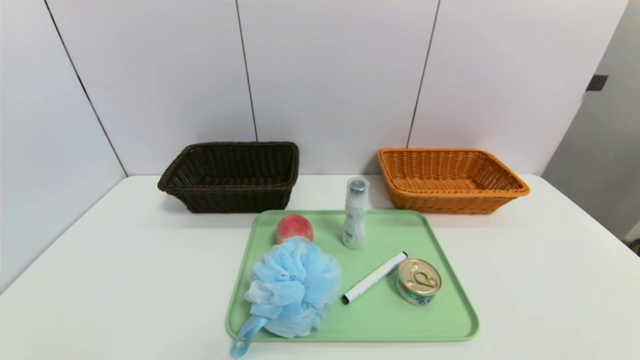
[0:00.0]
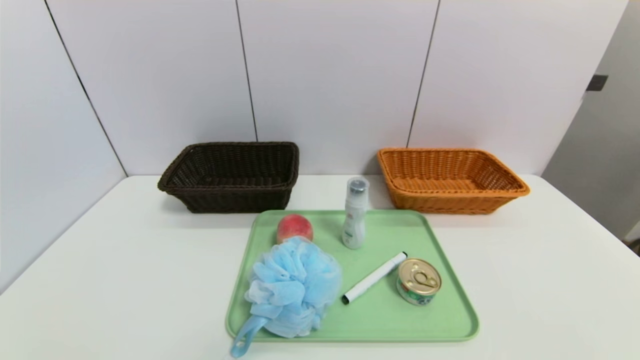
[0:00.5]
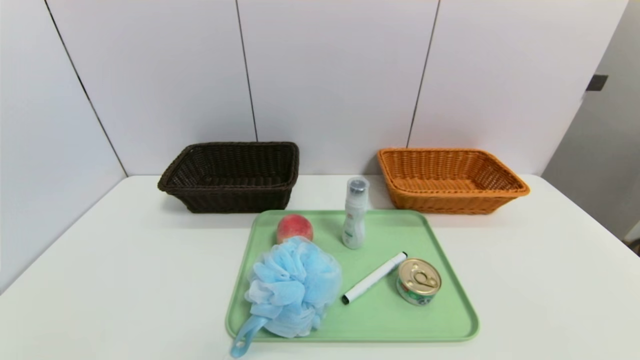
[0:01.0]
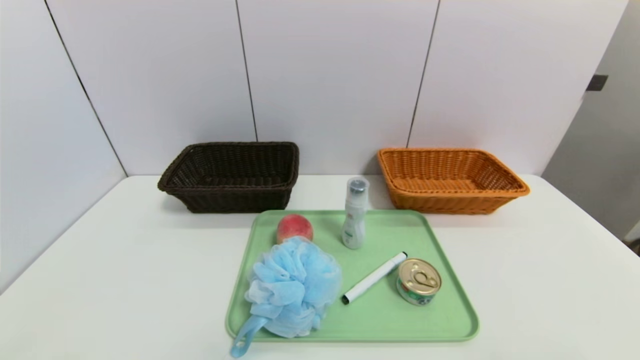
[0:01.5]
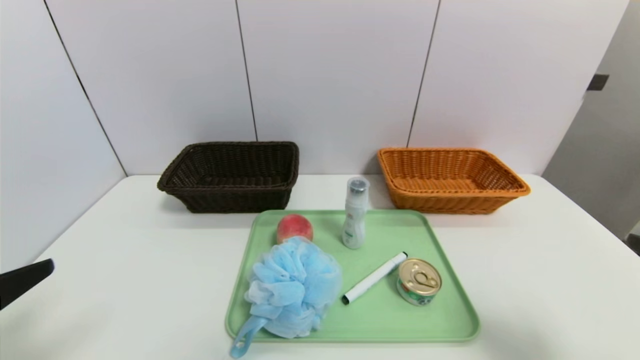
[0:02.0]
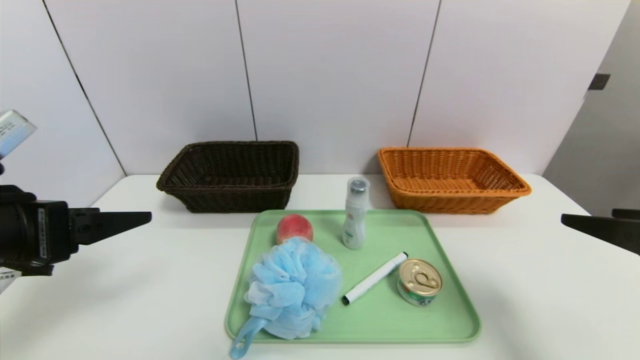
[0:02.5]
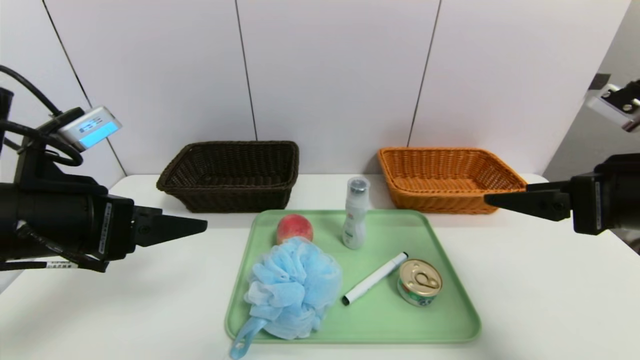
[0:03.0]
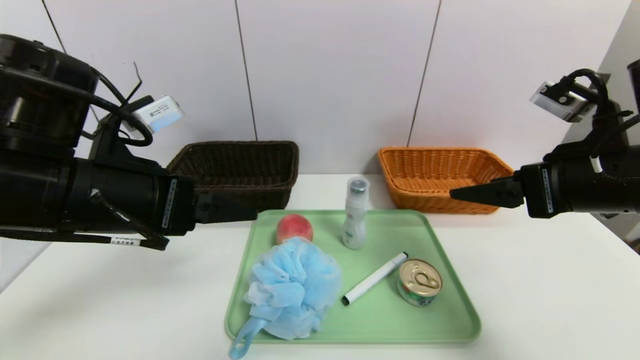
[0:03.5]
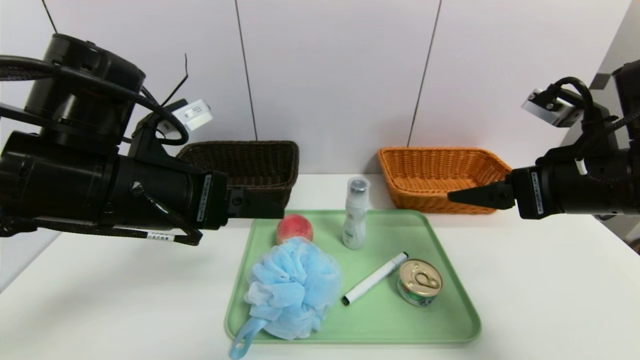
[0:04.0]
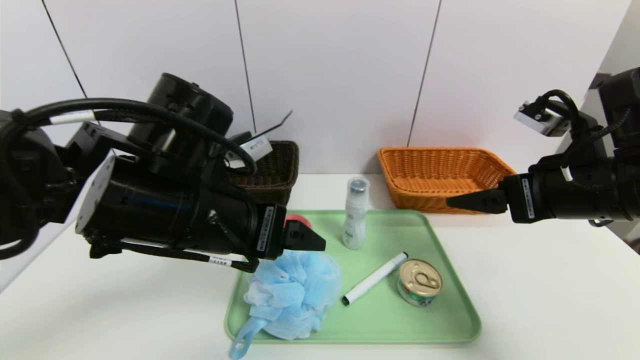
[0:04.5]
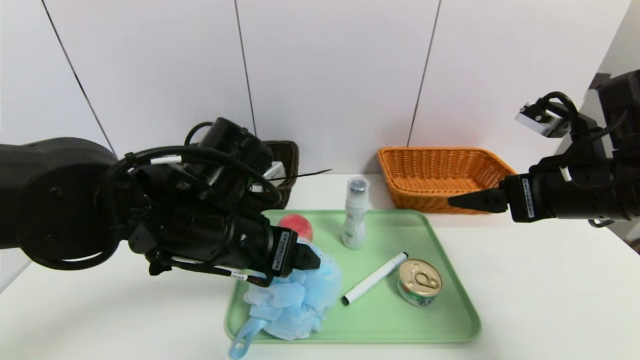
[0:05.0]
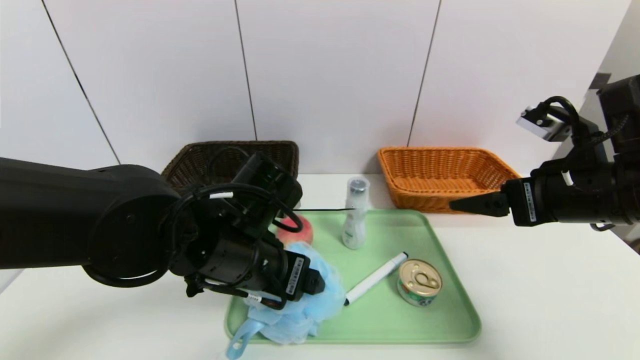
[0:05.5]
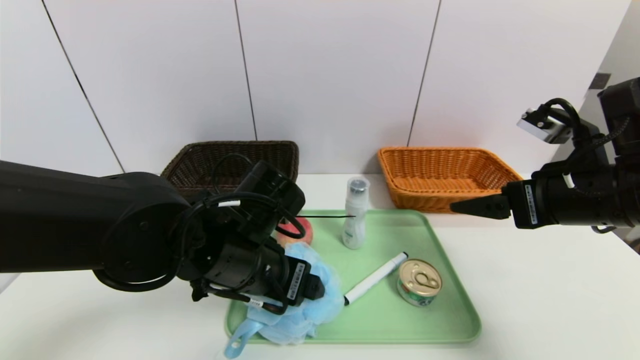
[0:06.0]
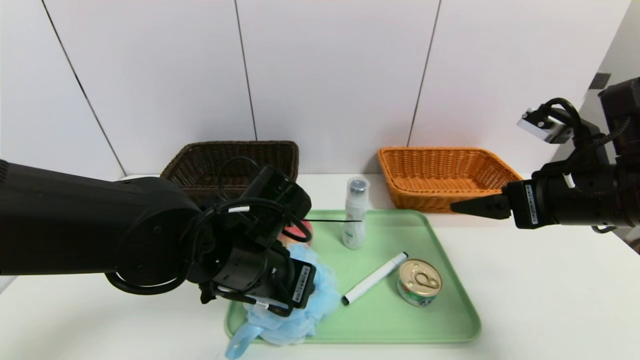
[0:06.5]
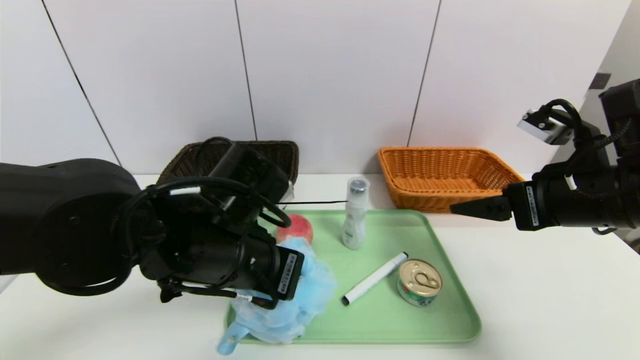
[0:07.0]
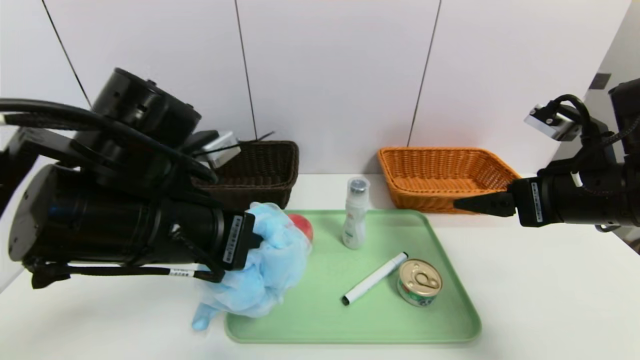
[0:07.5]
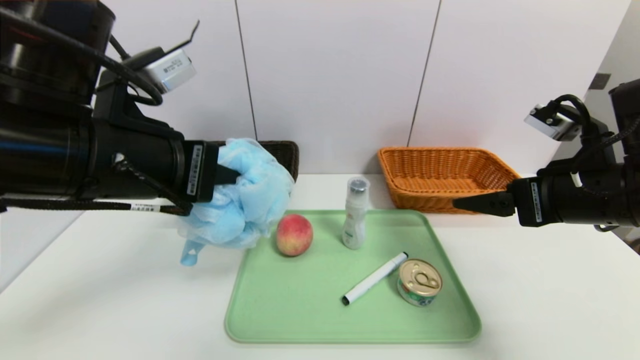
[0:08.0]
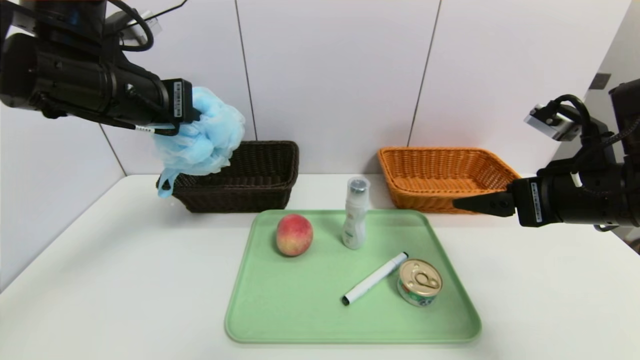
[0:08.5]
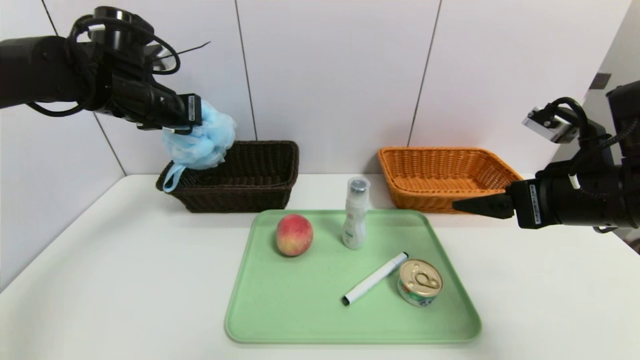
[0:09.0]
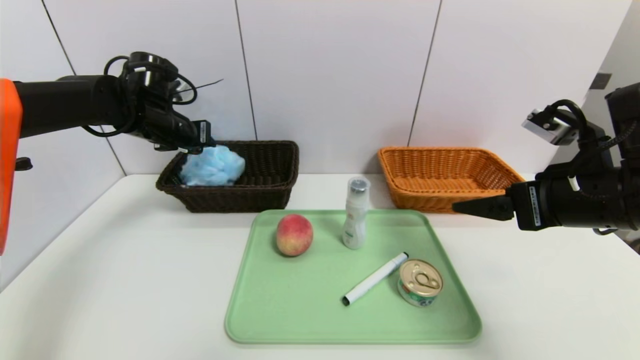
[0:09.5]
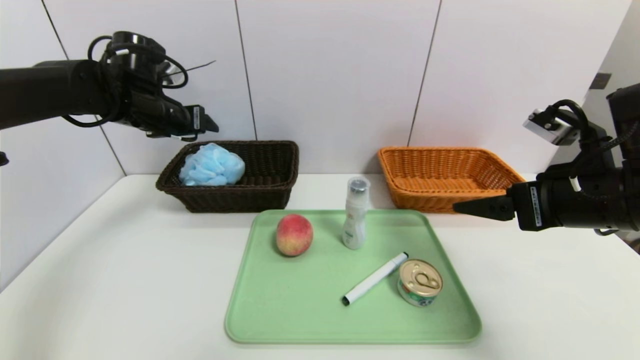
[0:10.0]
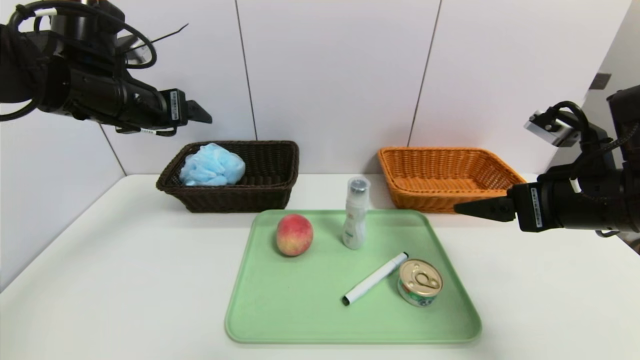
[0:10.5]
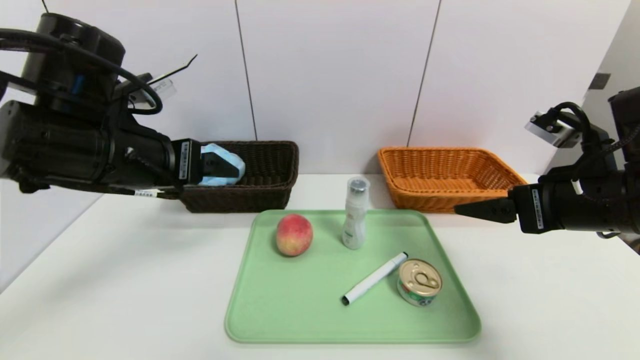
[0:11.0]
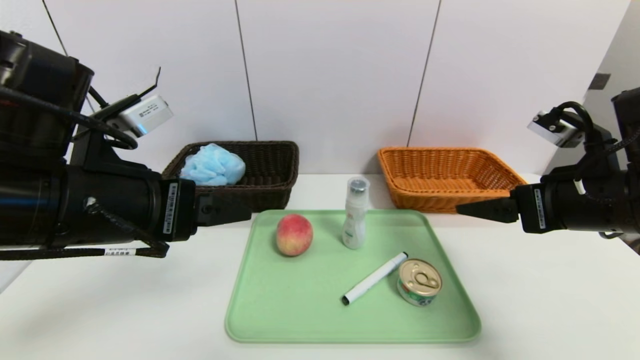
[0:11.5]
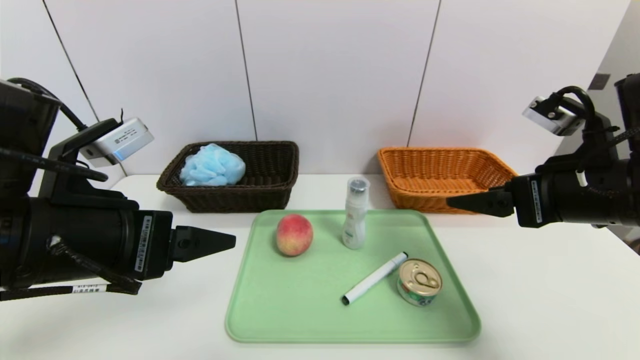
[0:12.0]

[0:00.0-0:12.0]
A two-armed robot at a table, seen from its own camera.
Task of the whole recording: place the food in the right basket with the right gripper, and place the non food items in the left basket with the left gripper.
Step, 0:00.0 to 0:09.5: Grasp the bath ball and put it in the left basket.
0:00.0 to 0:02.0: Both grippers move upward and forward, some 20 cm.
0:02.0 to 0:04.0: The left gripper goes roughly 20 cm forward and to the right. The right gripper goes roughly 15 cm forward and to the left.
0:04.0 to 0:06.0: The left gripper is displaced downward and to the right by roughly 15 cm.
0:06.0 to 0:08.0: The left gripper is displaced upward and to the left by roughly 15 cm, and closes its fingers.
0:08.0 to 0:10.0: The left gripper is displaced forward and to the left by approximately 25 cm, and opens up.
0:10.0 to 0:12.0: The left gripper moves backward, approximately 25 cm.

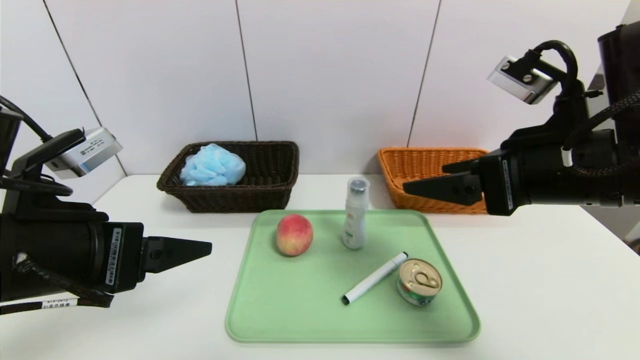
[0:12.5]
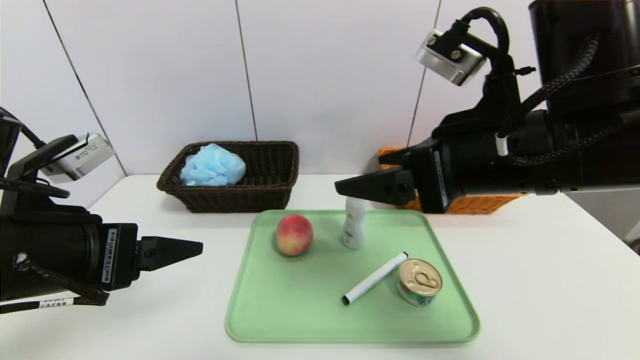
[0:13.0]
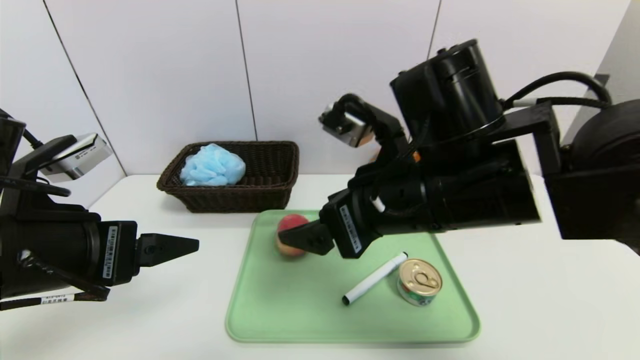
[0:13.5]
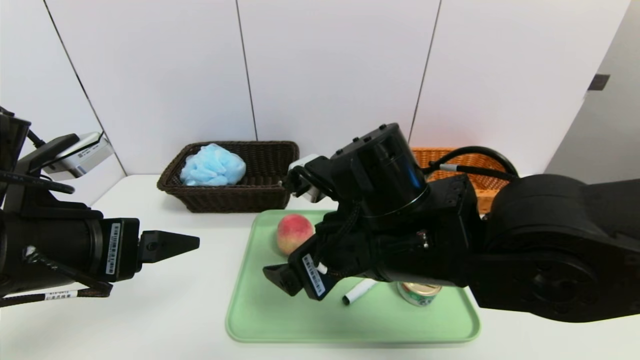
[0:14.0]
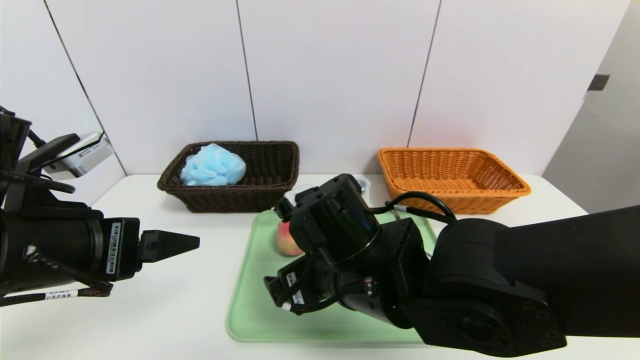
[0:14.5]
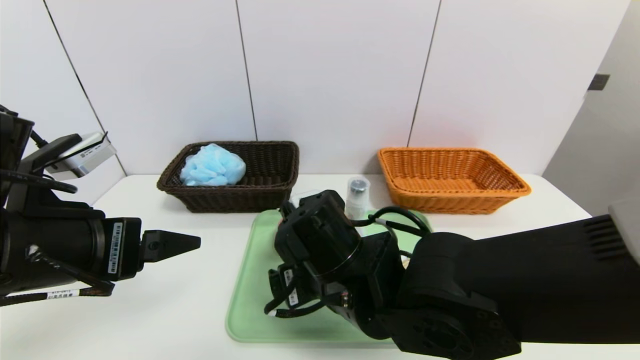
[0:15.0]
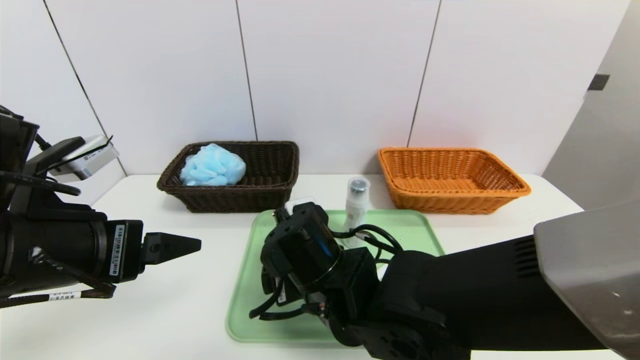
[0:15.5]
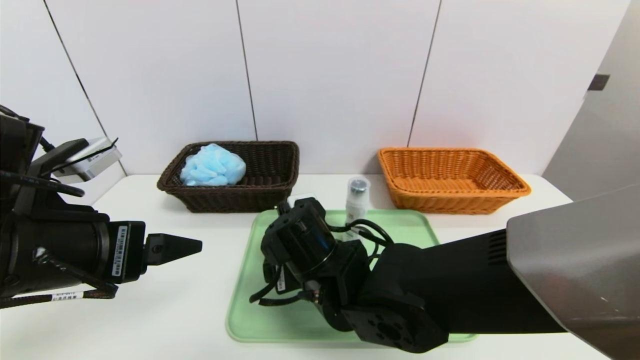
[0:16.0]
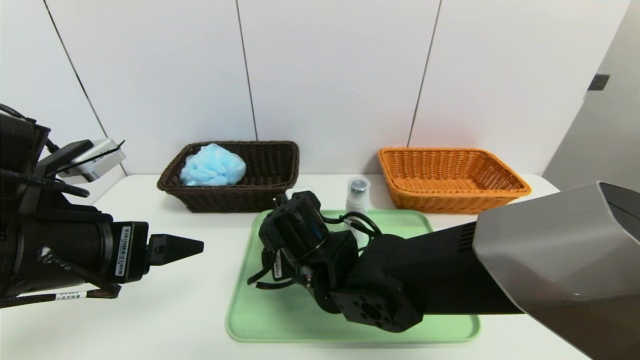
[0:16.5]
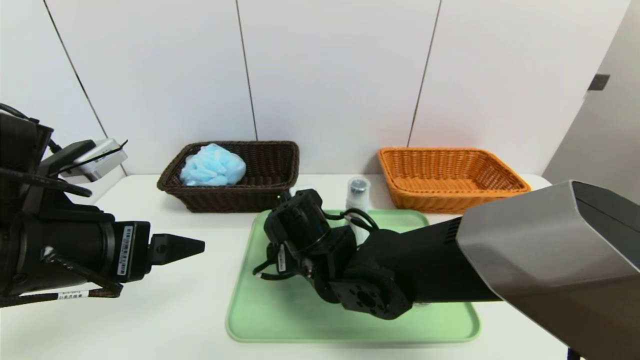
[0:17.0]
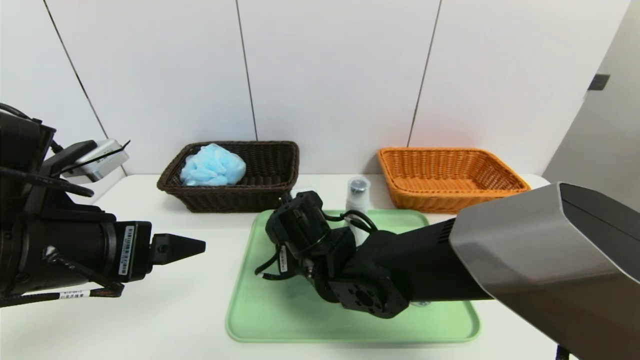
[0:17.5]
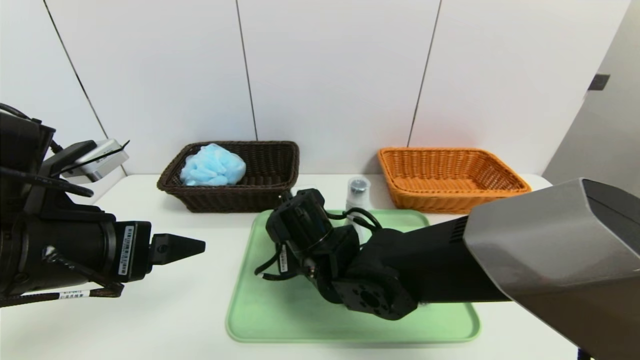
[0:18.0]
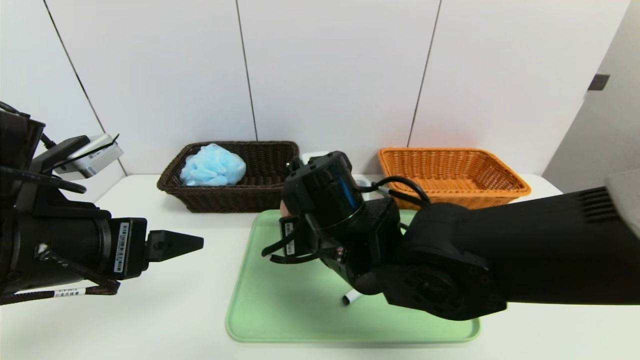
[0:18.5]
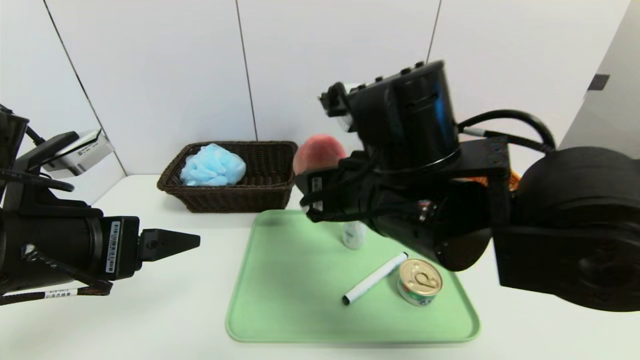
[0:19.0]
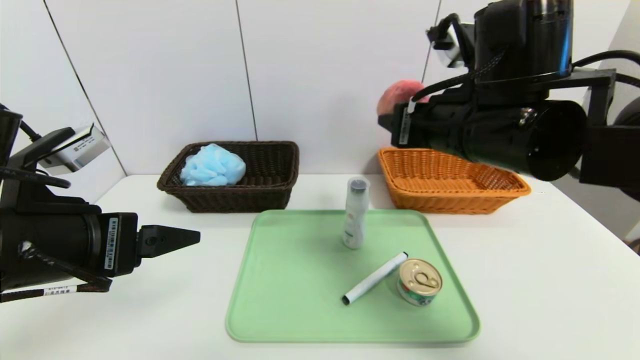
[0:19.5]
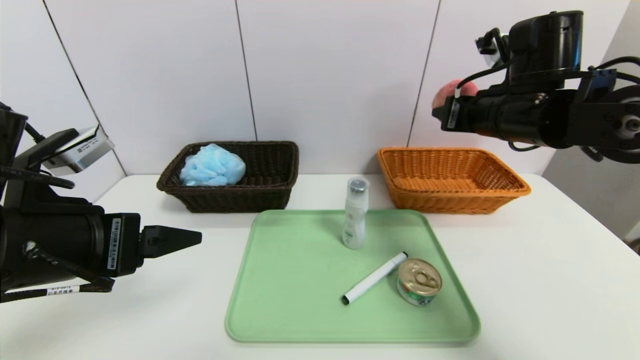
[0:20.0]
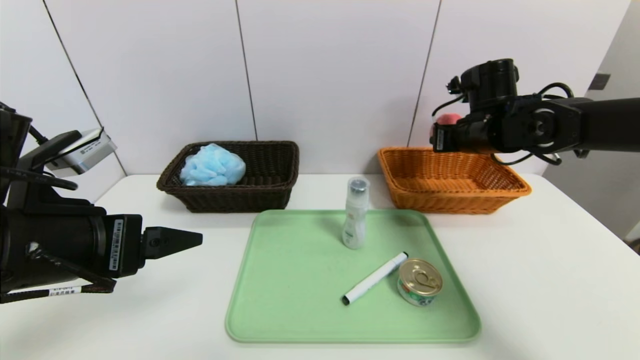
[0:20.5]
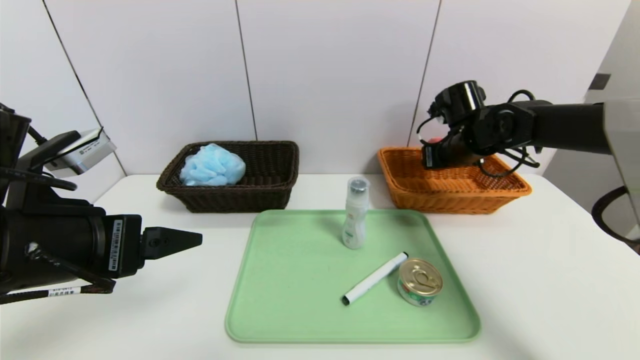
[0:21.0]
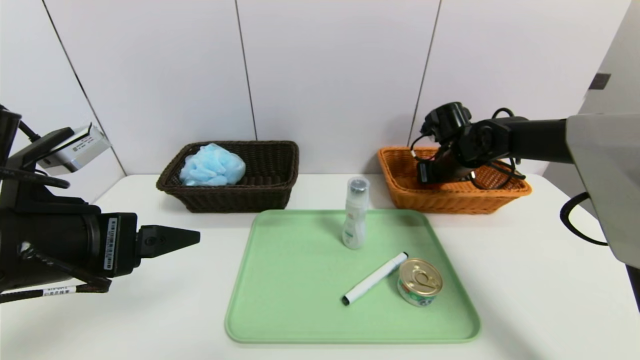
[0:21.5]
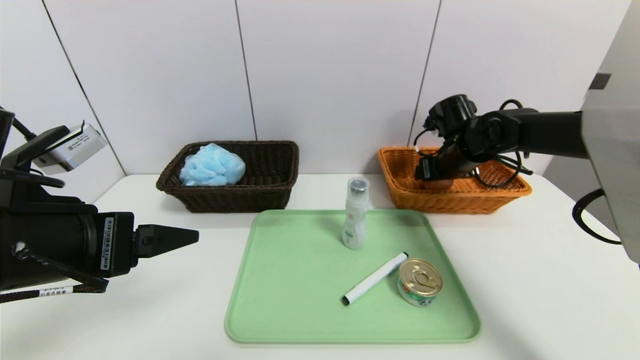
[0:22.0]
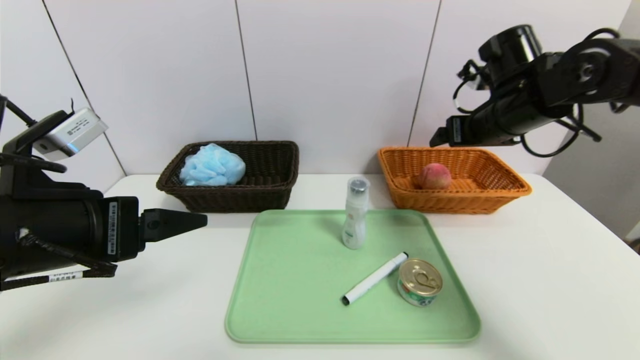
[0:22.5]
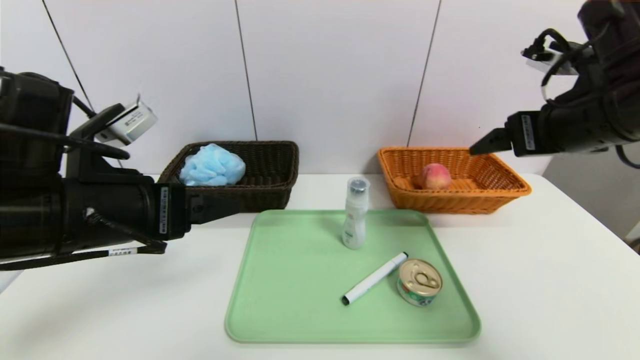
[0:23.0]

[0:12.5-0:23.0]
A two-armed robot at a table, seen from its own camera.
Task of the whole recording: place the food in the right basket with the right gripper, and place the non food items in the left basket with the left gripper.
Step, 0:12.5 to 0:22.0: Grasp the peach and put it in the right basket.
0:12.5 to 0:14.5: The right gripper moves to the left and downward, about 20 cm.
0:14.5 to 0:16.5: The right gripper is displaced forward by about 5 cm.
0:16.5 to 0:19.0: The right gripper moves upward and to the right, some 15 cm, and closes up.
0:19.0 to 0:21.0: The right gripper is displaced forward and to the right by roughly 30 cm.
0:21.0 to 0:23.0: The right gripper is displaced backward and upward by roughly 20 cm, and opens its fingers.
